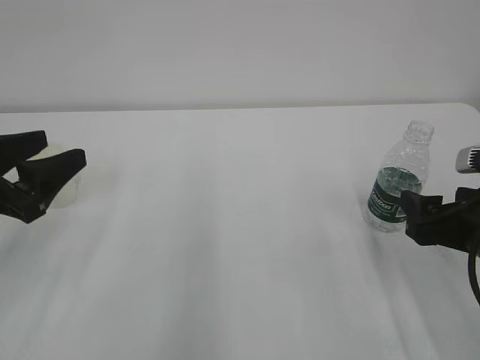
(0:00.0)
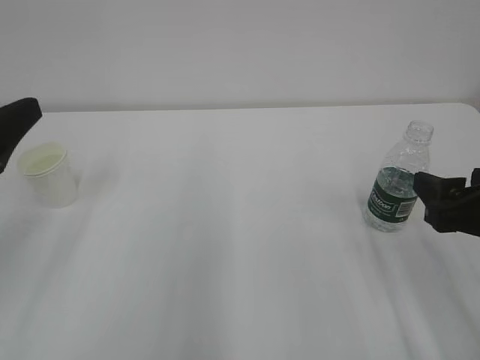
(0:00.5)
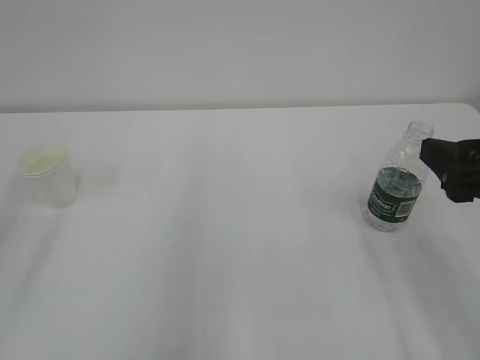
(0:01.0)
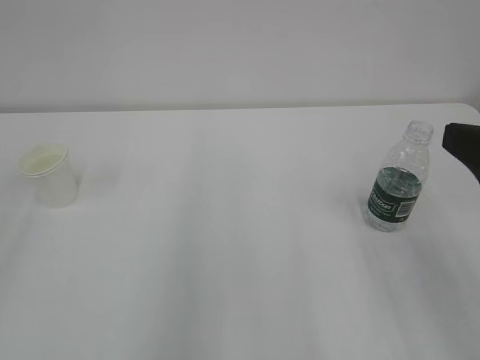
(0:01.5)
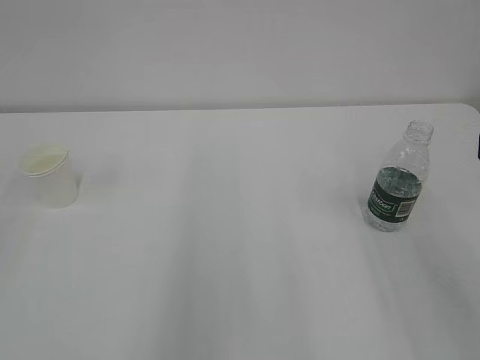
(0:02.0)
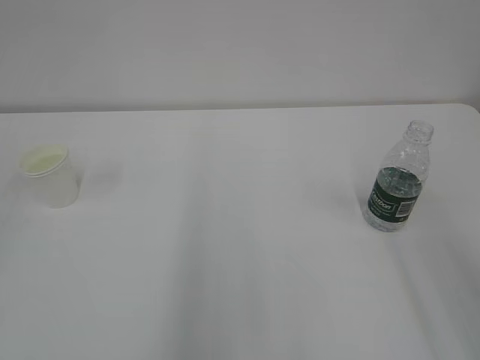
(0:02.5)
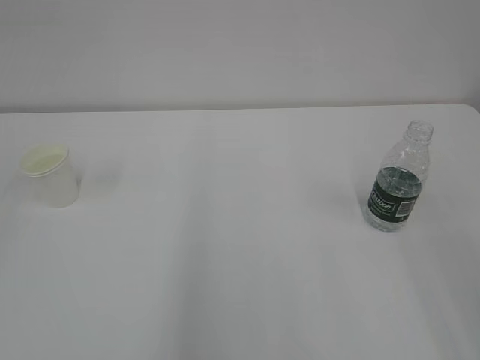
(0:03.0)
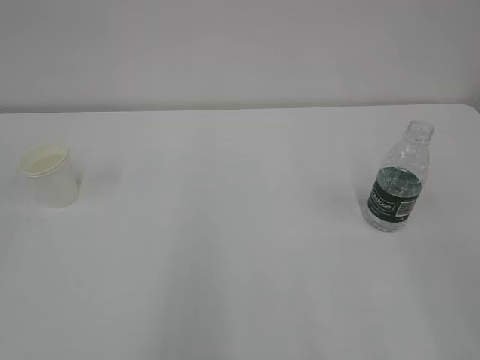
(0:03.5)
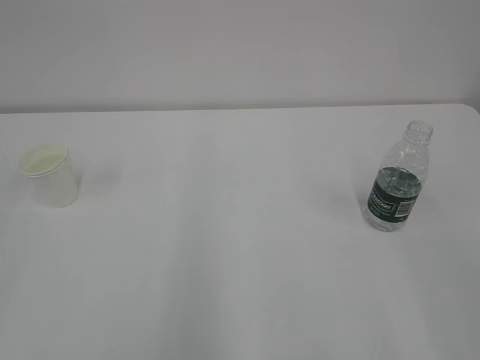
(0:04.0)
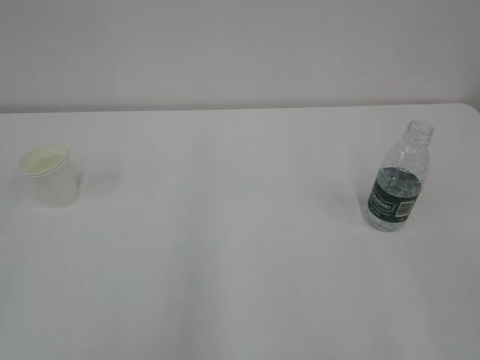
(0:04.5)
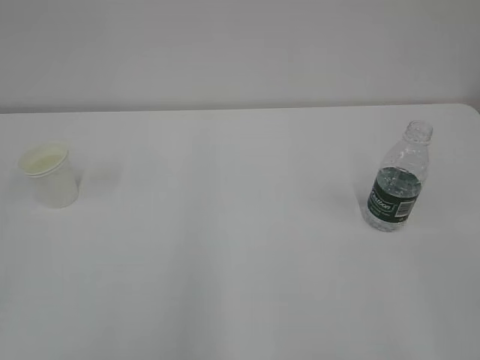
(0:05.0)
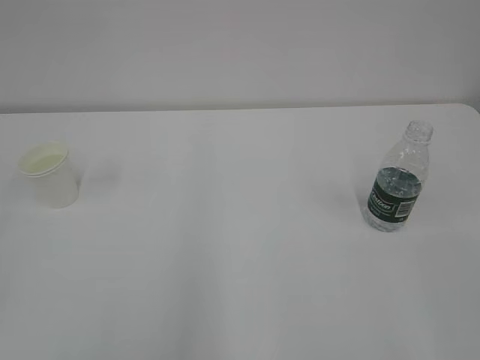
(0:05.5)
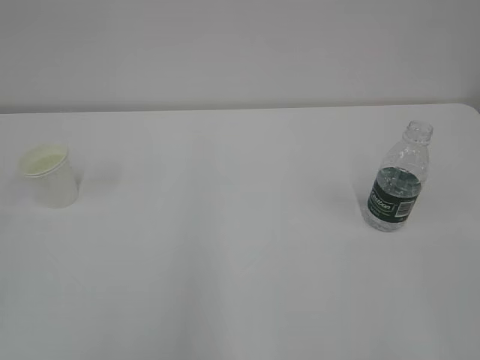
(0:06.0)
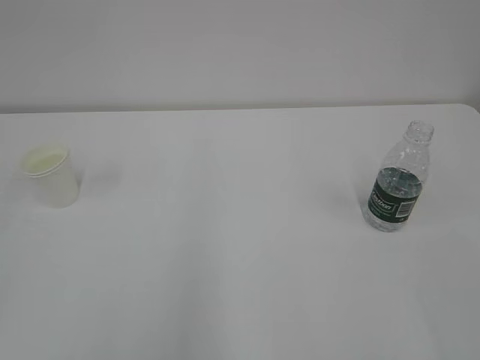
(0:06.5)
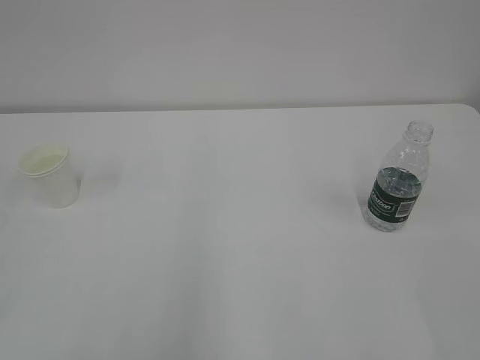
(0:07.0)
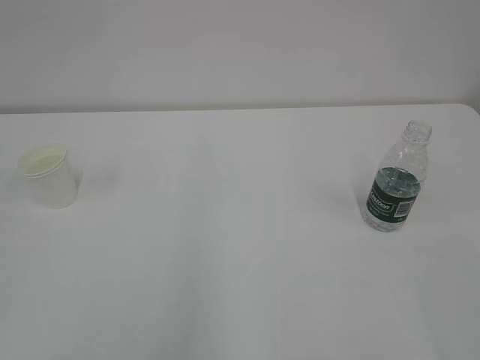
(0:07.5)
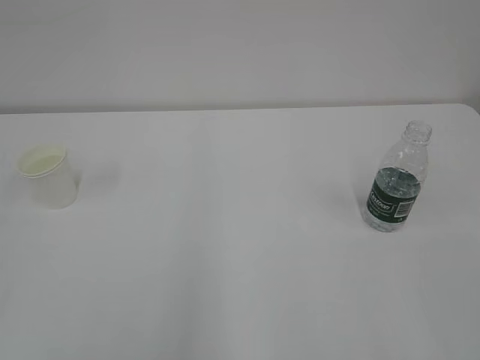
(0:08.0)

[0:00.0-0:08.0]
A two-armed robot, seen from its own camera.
0:00.0 to 0:02.0: The grippers both shift upward and backward by some 20 cm.

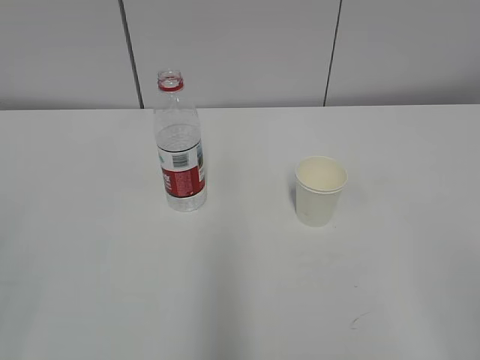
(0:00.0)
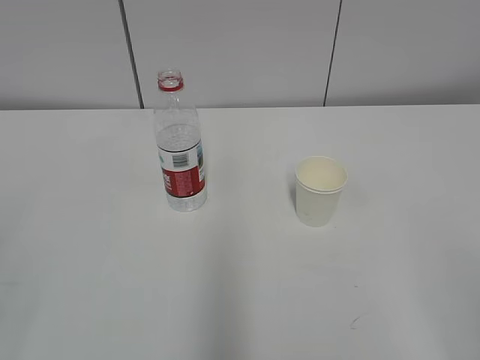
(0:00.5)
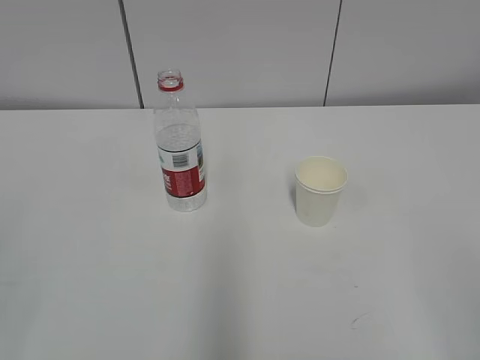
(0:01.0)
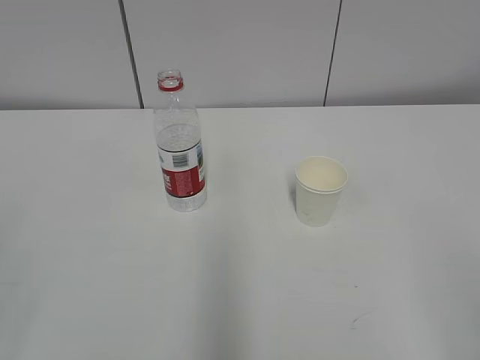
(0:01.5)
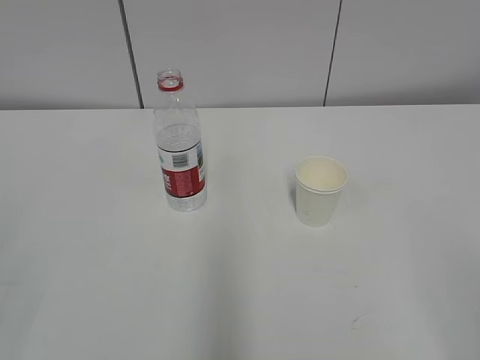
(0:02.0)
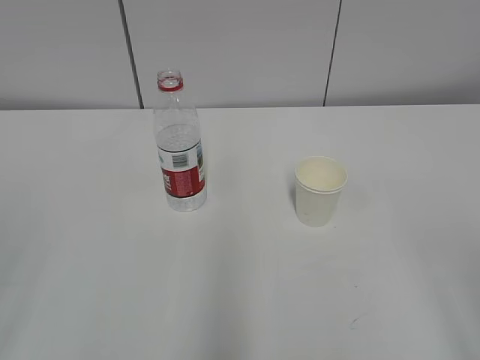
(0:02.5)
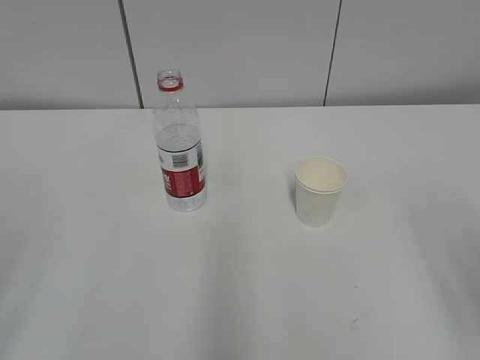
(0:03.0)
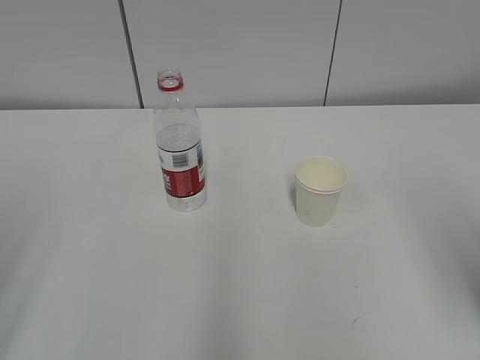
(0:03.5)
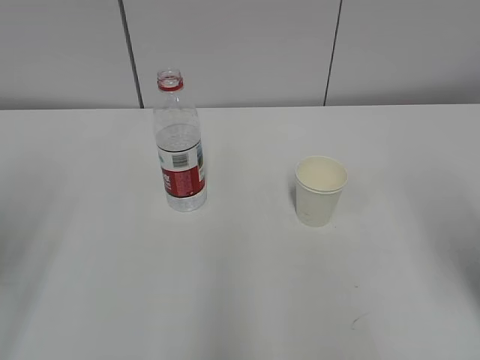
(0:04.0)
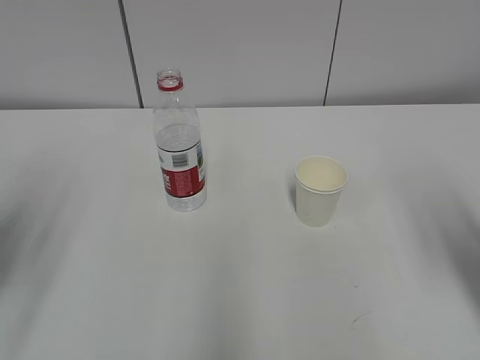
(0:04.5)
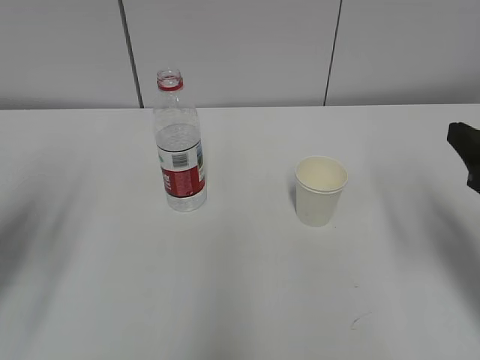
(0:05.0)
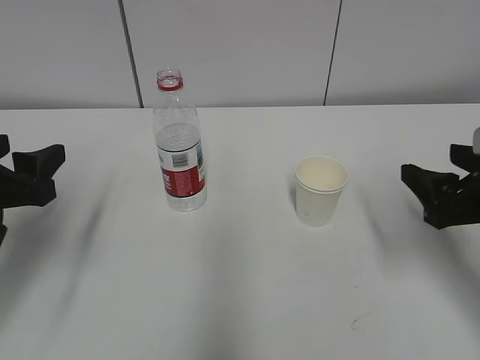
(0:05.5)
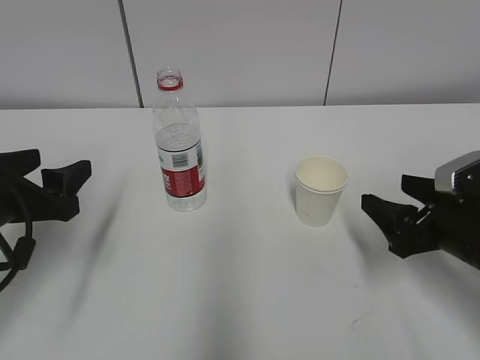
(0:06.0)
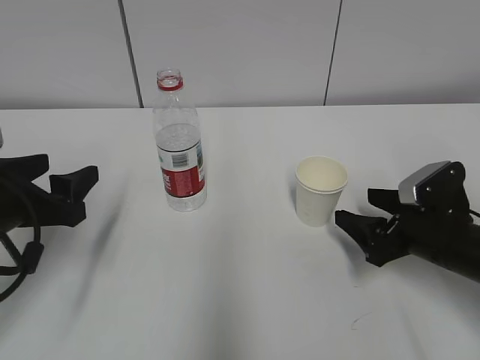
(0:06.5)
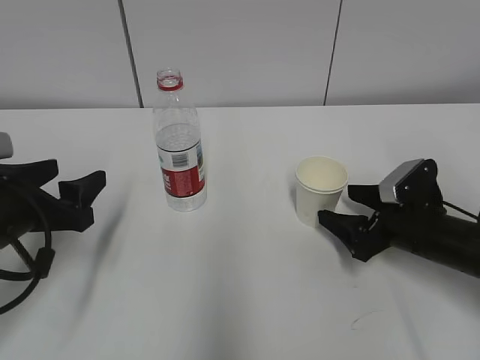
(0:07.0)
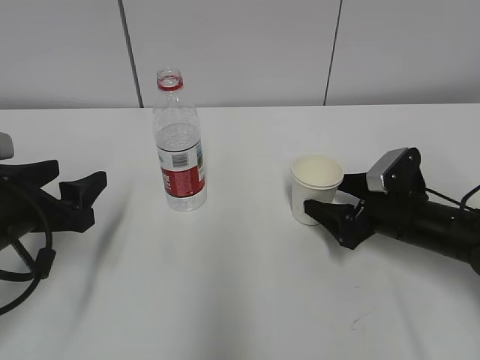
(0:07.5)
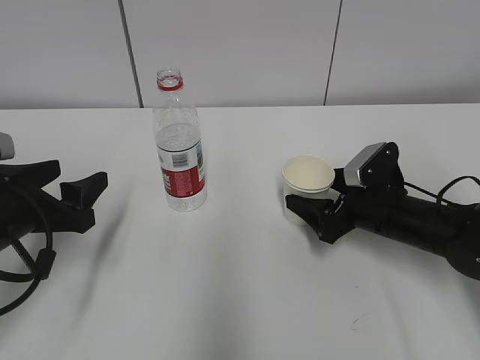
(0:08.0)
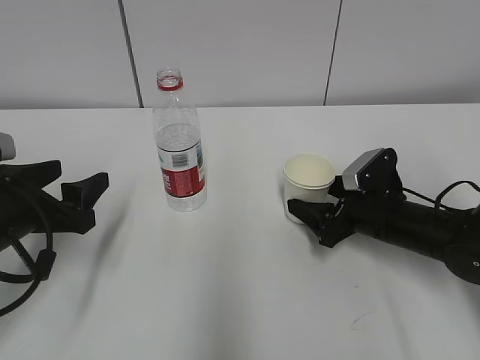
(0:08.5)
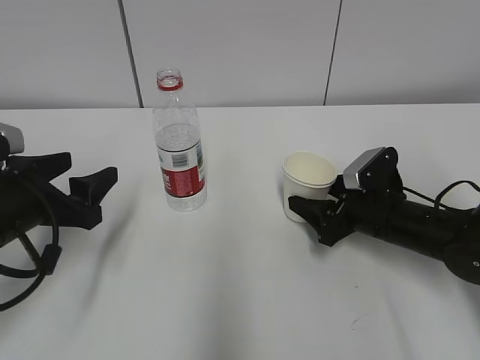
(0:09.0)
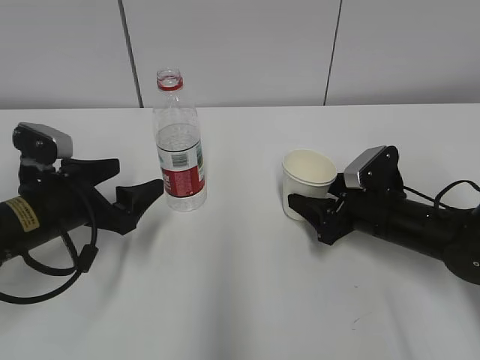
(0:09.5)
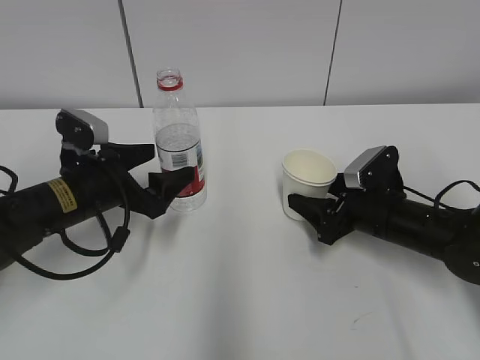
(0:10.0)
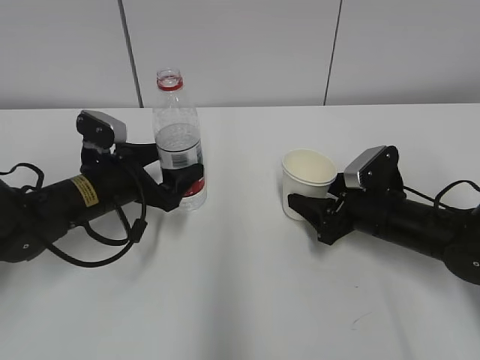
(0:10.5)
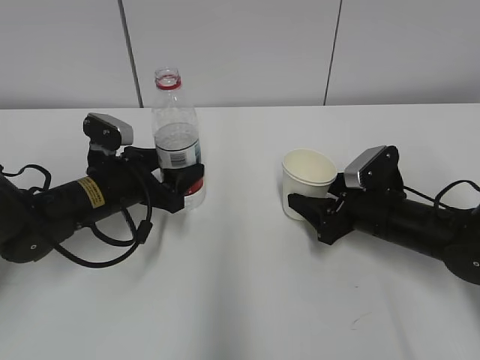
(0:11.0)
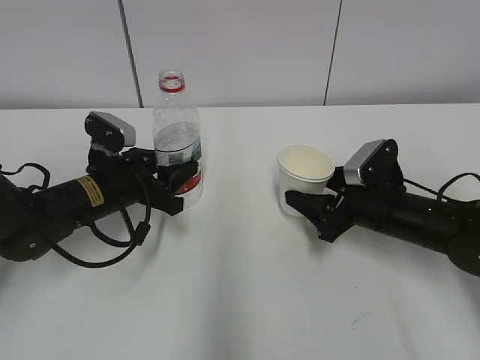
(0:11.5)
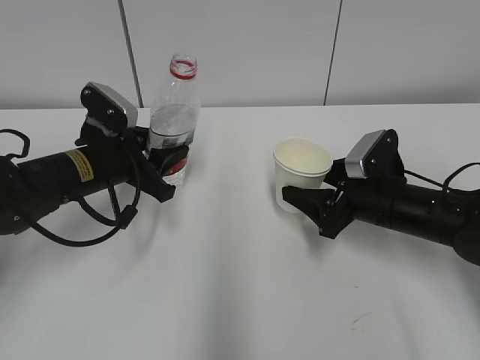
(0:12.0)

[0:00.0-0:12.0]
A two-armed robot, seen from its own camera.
Step, 0:00.0 to 0:09.0: Grab the paper cup with the right hand.
0:02.0 to 0:04.0: The right gripper moves forward, about 15 cm.
0:04.0 to 0:06.0: The left gripper moves forward, downward and to the right, about 15 cm, and opens its fingers, while the right gripper shifts approximately 20 cm downward and forward.
0:06.0 to 0:08.0: The right gripper heads forward, downward and to the left, covering approximately 10 cm.
0:08.0 to 0:10.0: The left gripper moves forward and to the right, approximately 10 cm; the right gripper closes.
0:10.0 to 0:12.0: The left gripper closes up.

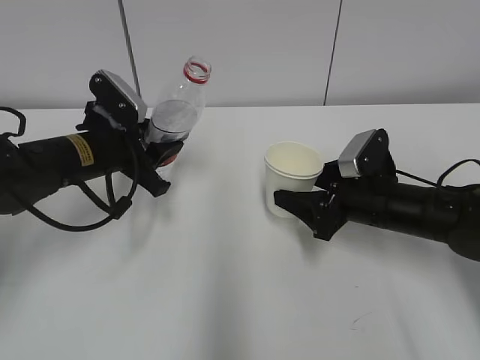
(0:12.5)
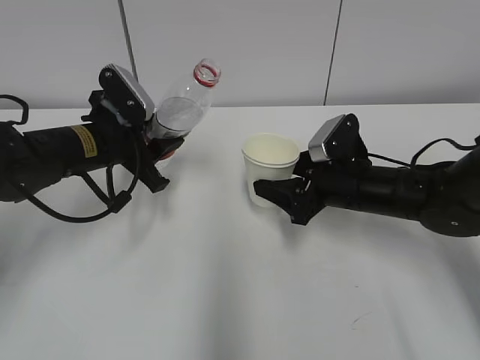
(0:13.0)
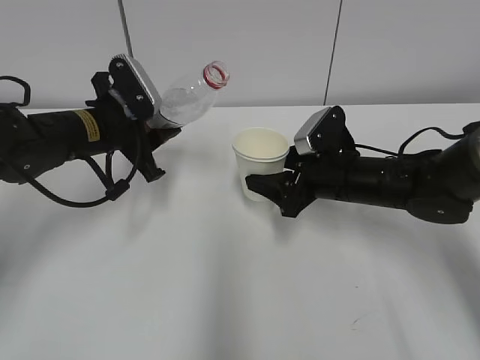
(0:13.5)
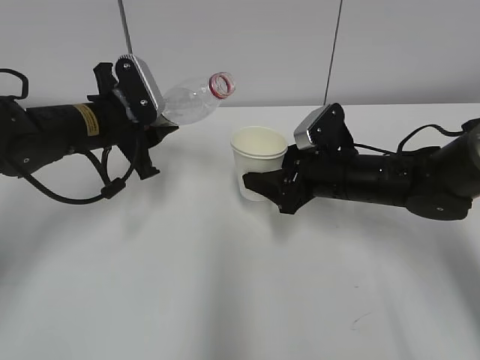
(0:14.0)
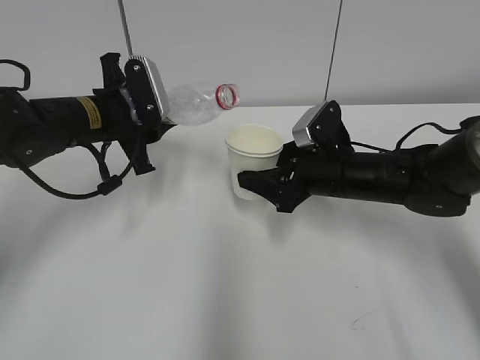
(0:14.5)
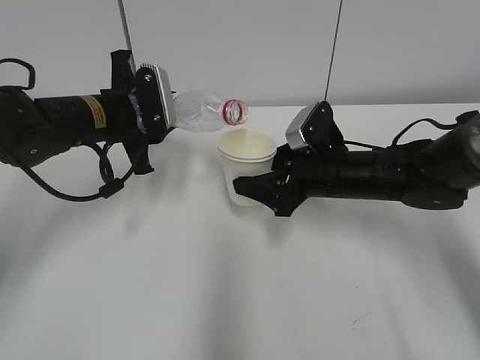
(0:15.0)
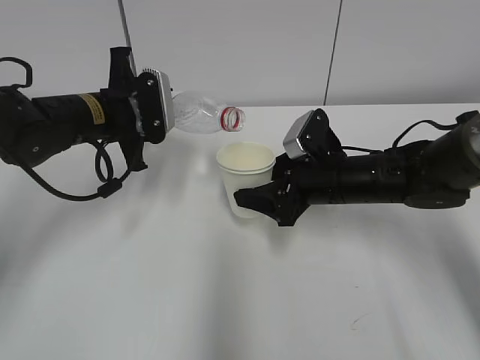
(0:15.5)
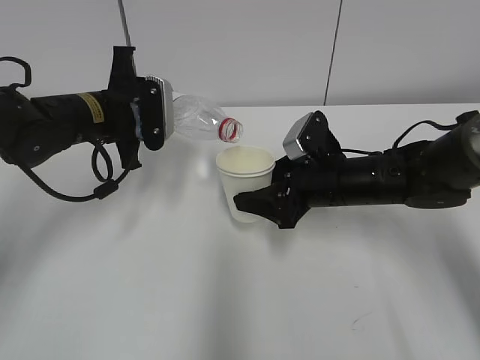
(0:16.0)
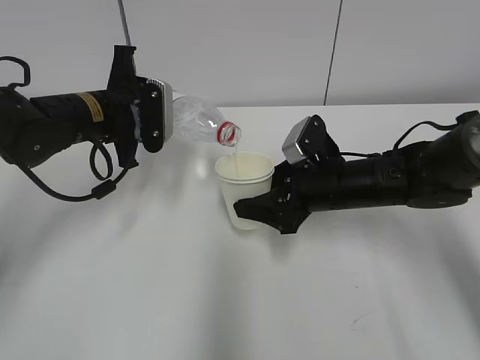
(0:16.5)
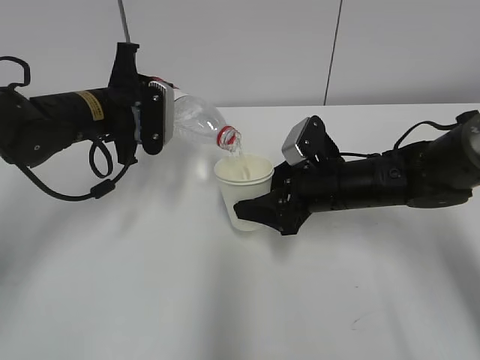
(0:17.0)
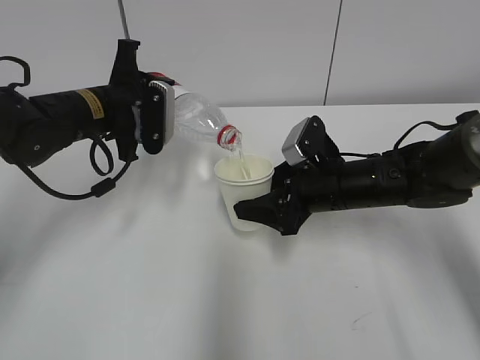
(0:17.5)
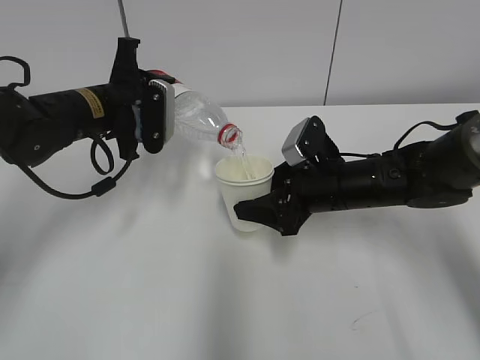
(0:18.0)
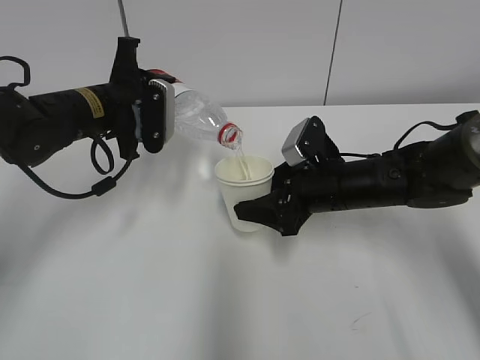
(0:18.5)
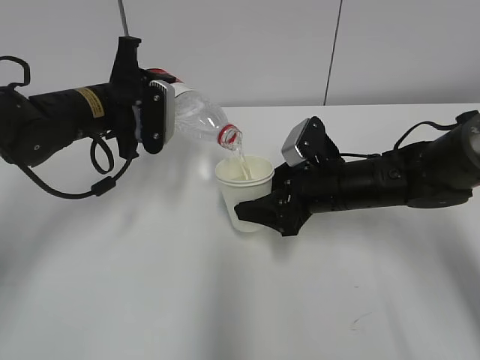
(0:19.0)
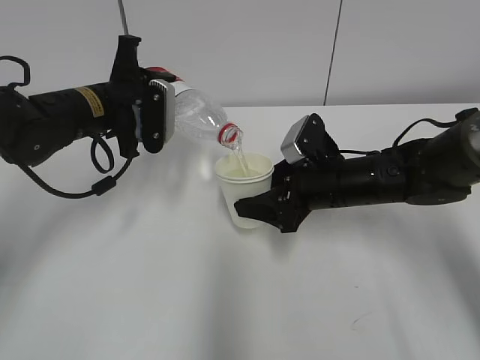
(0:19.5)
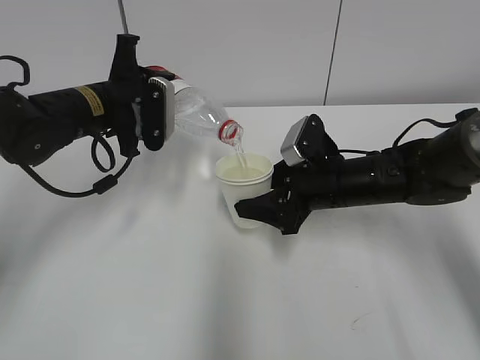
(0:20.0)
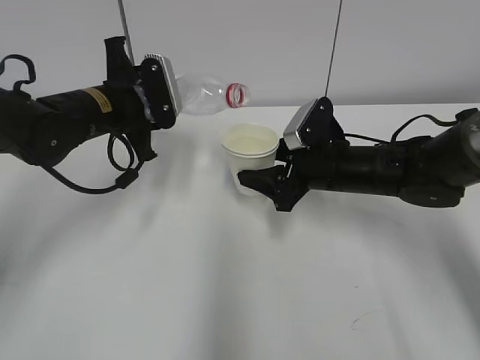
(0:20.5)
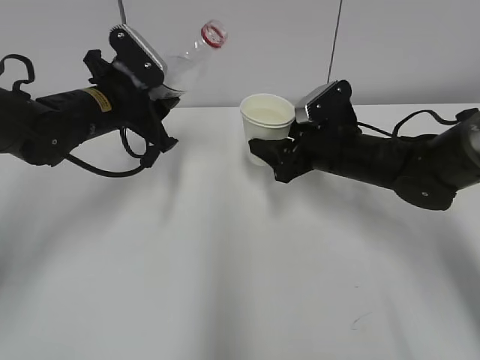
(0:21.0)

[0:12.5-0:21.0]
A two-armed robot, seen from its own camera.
Step, 0:13.5 to 0:16.5: Fill water with the right hand.
Step, 0:13.5 to 0:16.5: Pour water with the left hand.
Step, 0:17.0 to 0:18.0: Collect water with the left hand.
0:12.5 to 0:14.5: The right gripper ends up approximately 5 cm from where it was.
0:16.5 to 0:19.0: The grippers move only a little.
